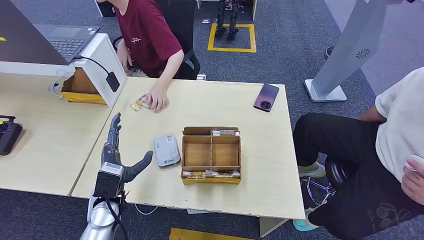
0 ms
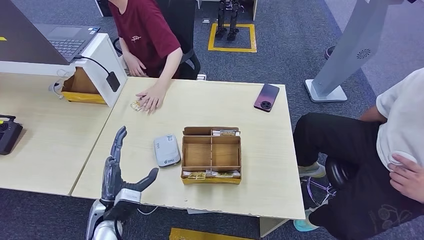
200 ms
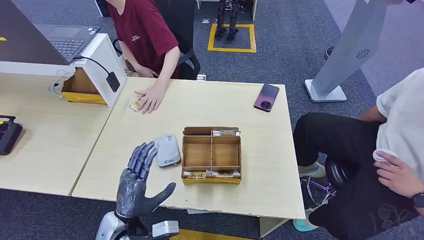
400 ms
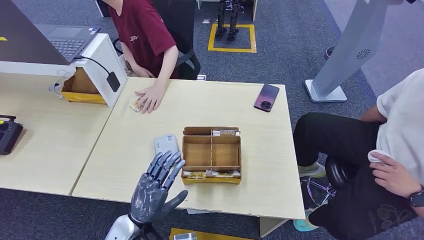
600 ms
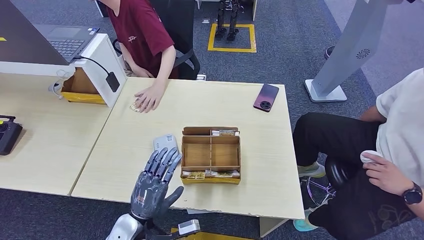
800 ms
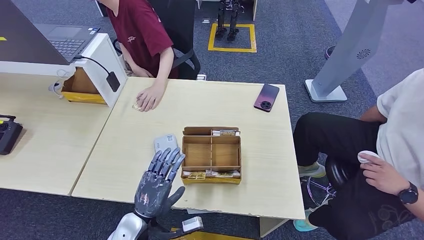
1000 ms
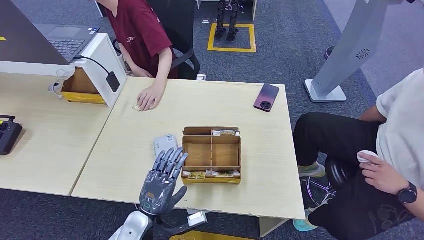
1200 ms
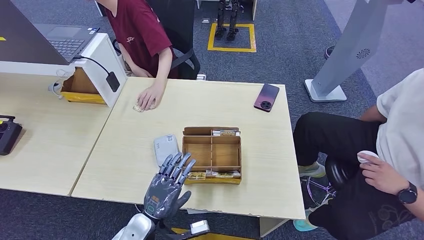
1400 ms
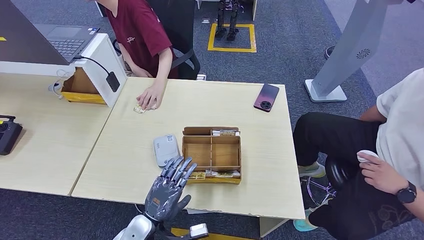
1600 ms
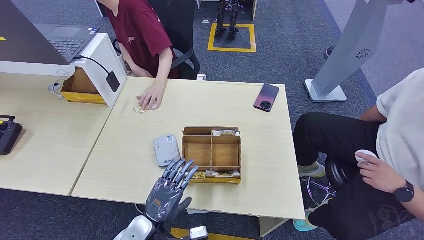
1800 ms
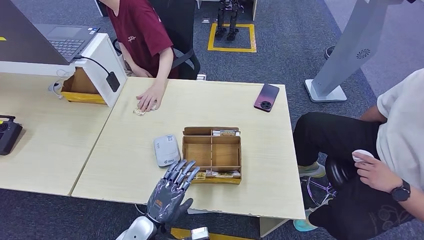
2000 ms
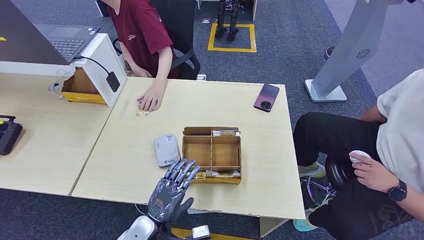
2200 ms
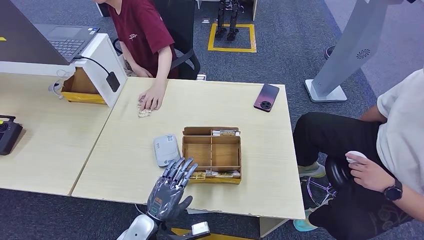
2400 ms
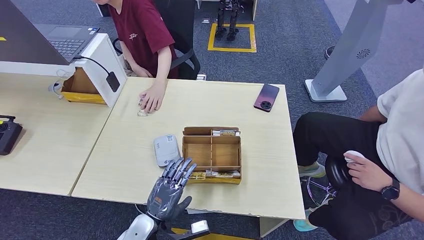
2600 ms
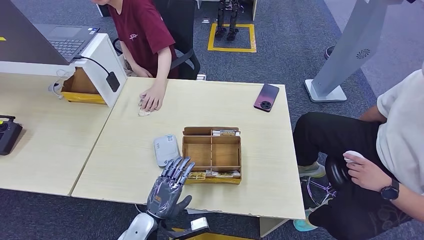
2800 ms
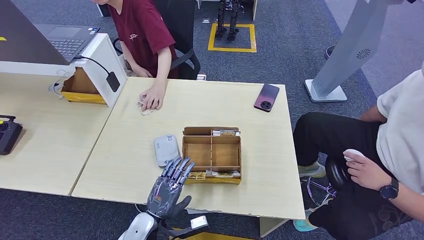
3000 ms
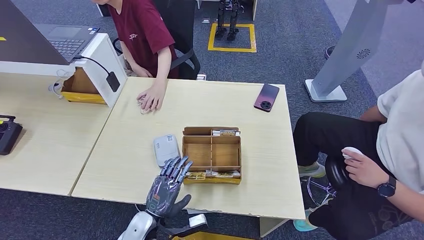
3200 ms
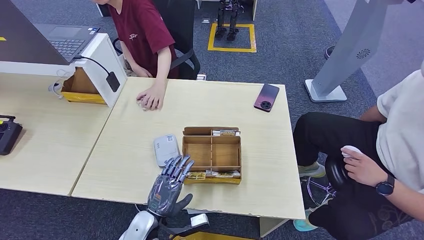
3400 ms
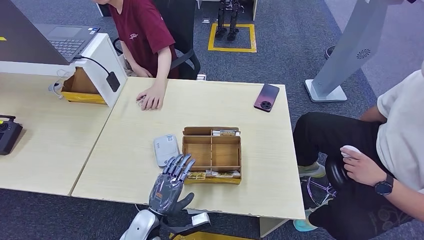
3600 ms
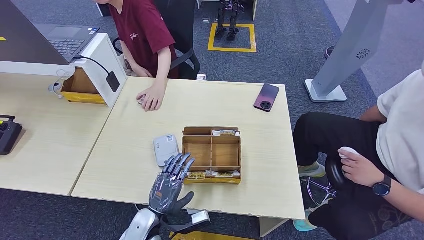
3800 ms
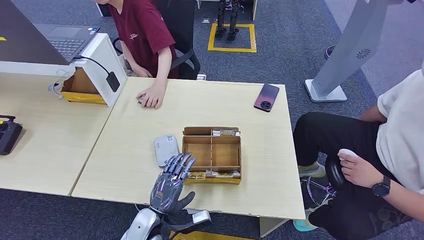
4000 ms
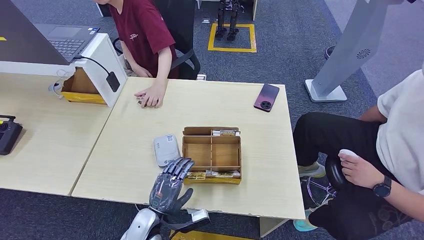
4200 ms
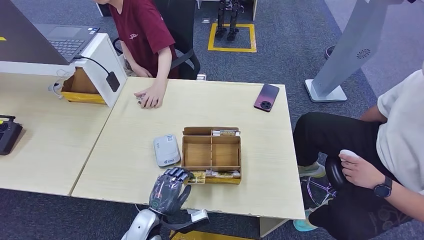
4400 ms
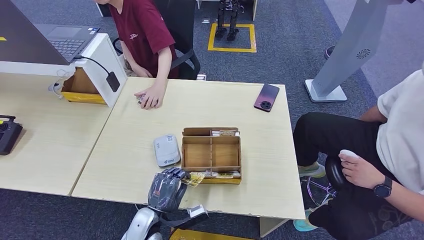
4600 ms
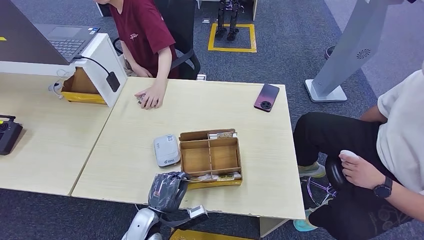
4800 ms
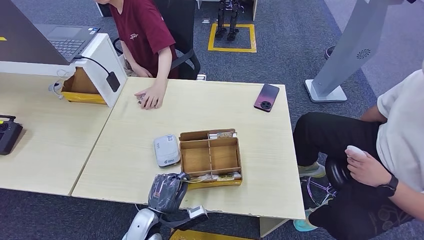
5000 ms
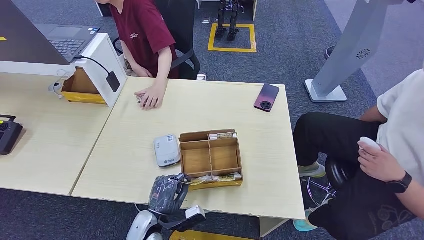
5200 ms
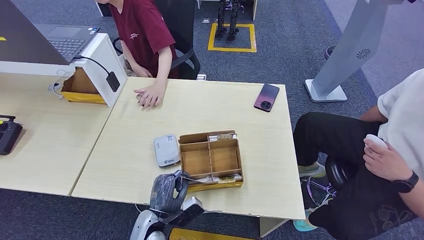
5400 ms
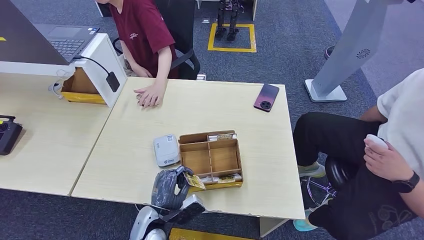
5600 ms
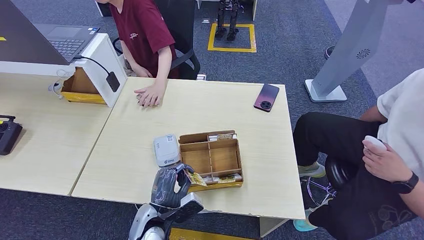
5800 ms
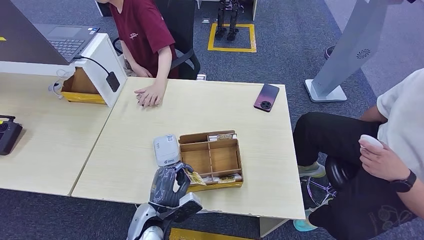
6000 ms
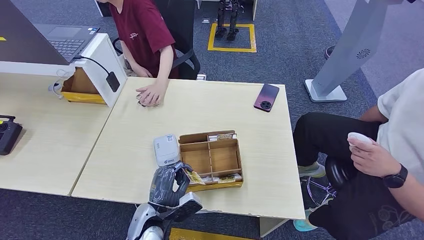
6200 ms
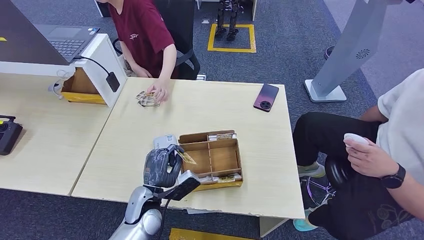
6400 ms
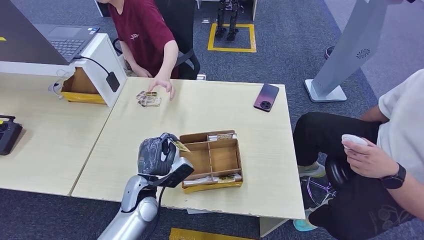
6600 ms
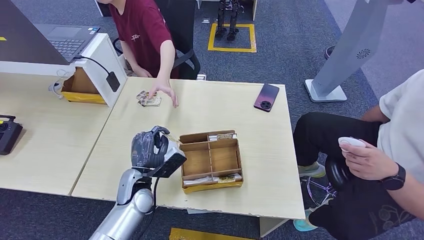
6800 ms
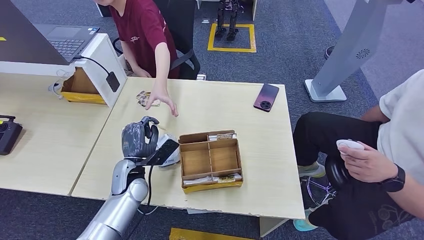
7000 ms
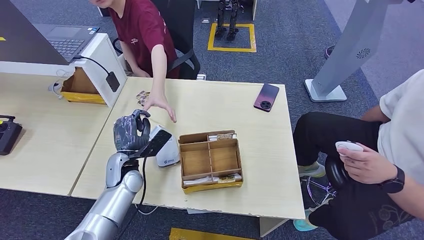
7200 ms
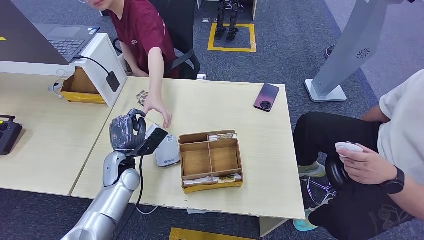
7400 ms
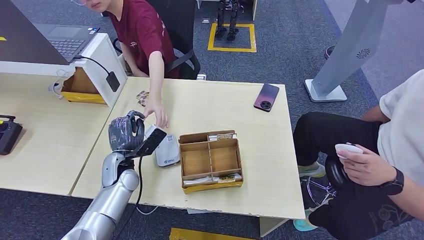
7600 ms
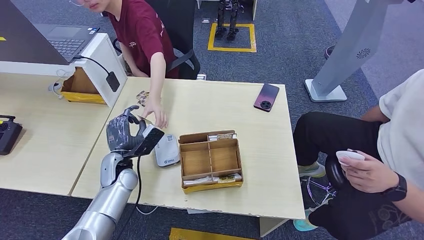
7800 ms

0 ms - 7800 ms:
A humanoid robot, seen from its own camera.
Step, 4000 ms - 6600 ms: Pick up the room key from the key card box.
Step, 6800 ms - 7800 ms: Hand the room key to the person.
0 ms - 1600 ms: The left hand shifts roughly 10 cm to the right, backward and downward.
1600 ms - 4600 ms: The hands make only small movements.
6200 ms - 7800 ms: The left hand is displaced forward and to the left by some 15 cm.
